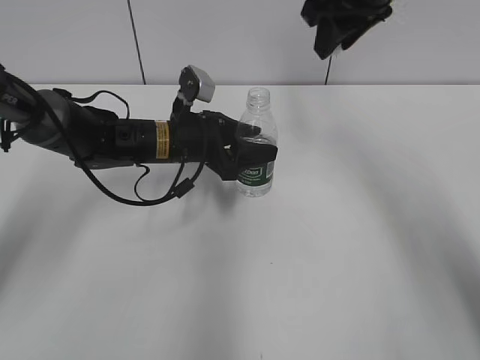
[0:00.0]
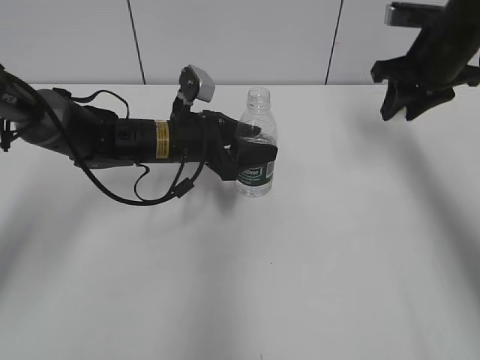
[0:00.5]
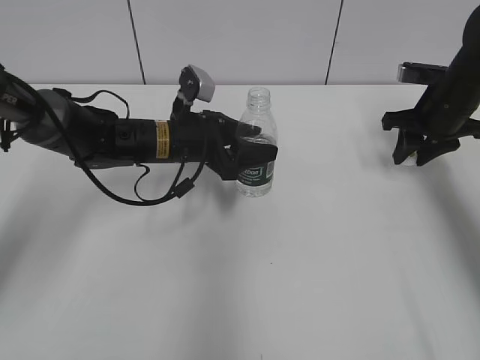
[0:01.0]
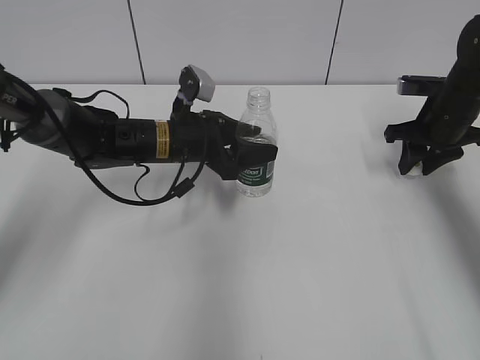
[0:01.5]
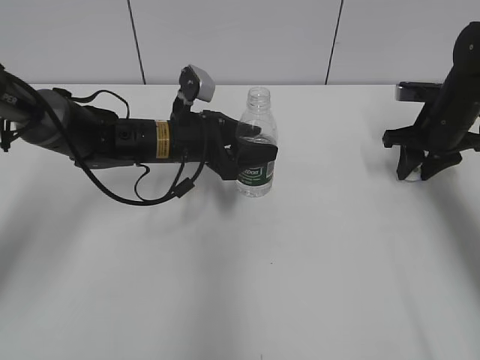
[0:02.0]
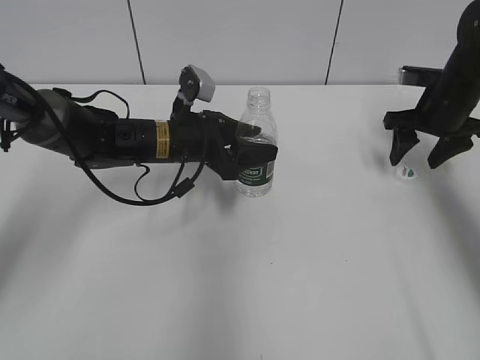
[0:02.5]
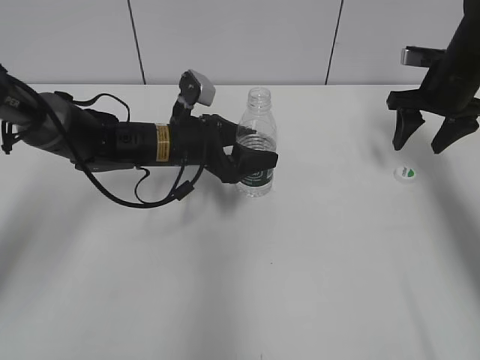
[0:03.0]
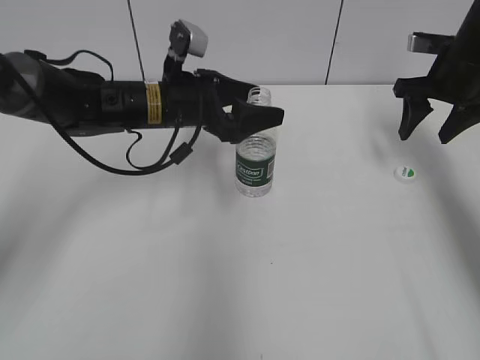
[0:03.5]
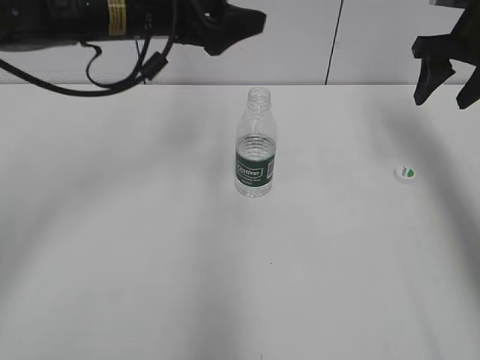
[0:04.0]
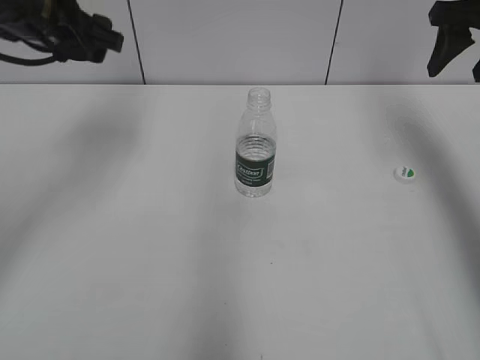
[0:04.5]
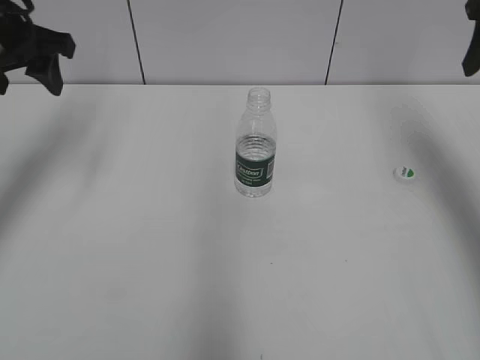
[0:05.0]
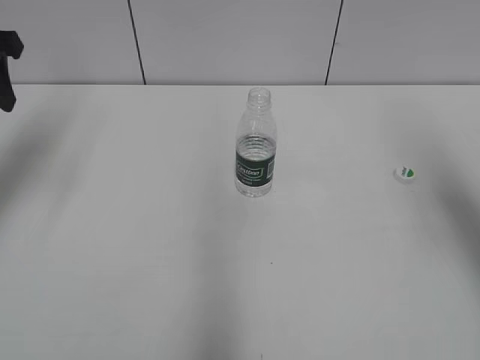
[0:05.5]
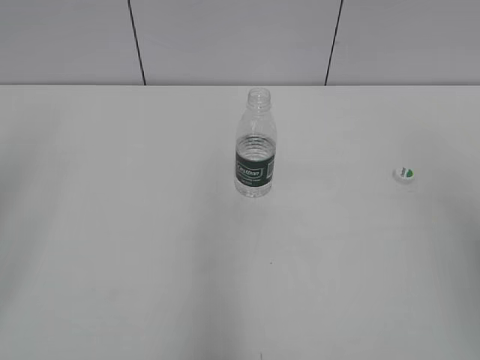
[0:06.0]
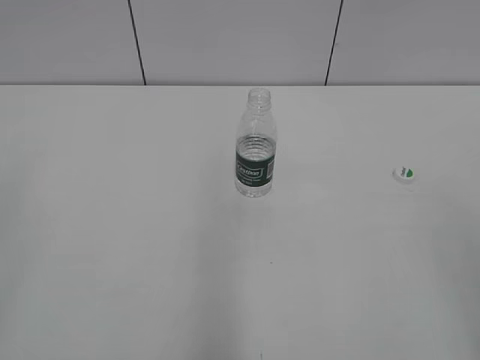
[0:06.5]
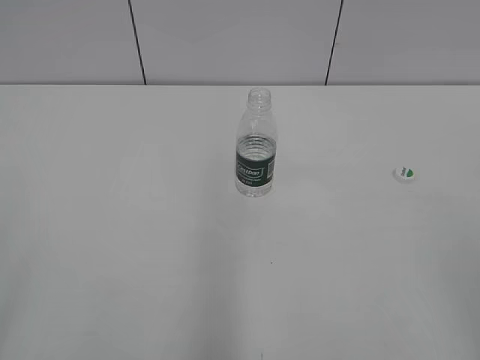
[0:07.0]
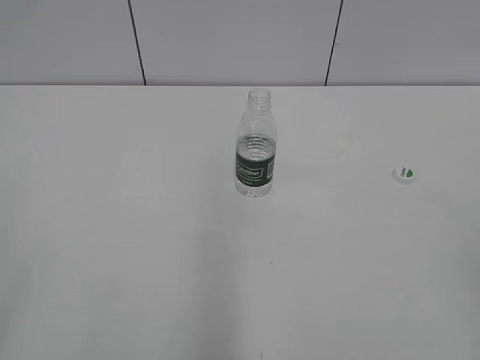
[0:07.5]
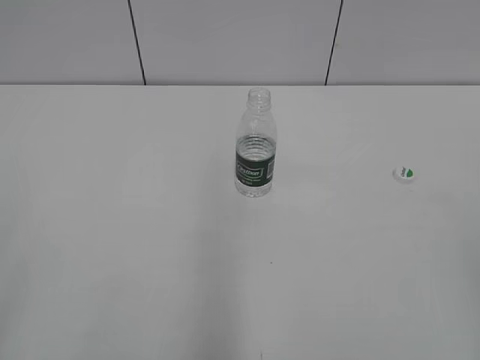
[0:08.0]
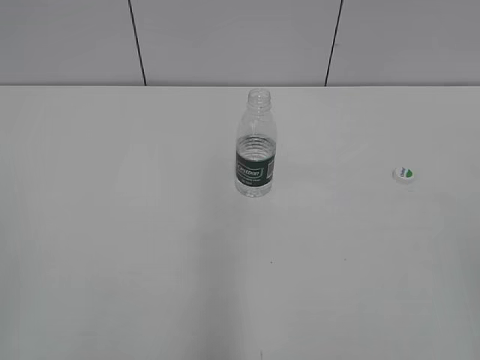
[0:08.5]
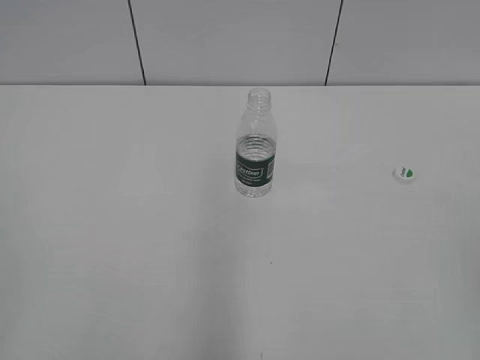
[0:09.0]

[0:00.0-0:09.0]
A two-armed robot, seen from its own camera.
Step, 0:00.0 to 0:02.0: Place the bottle cap on the table with the right gripper.
Step, 0:02.5 to 0:03.5: Place the bottle on the table with the left gripper.
0:00.0 to 0:02.0: The right gripper travels downward and to the right by about 25 cm.
0:02.0 to 0:04.5: The right gripper shifts some 20 cm upward, and opens, while the left gripper heads upward and to the left, covering roughly 20 cm, and opens up.
0:04.5 to 0:07.0: The grippers both shift backward by approximately 40 cm. The left gripper closes up.

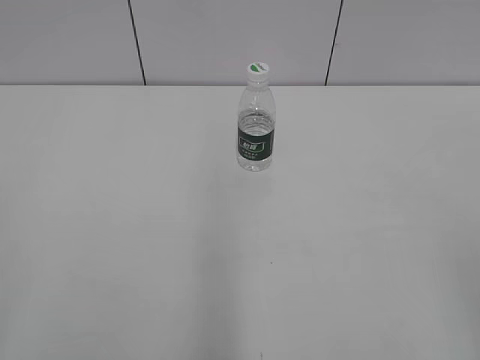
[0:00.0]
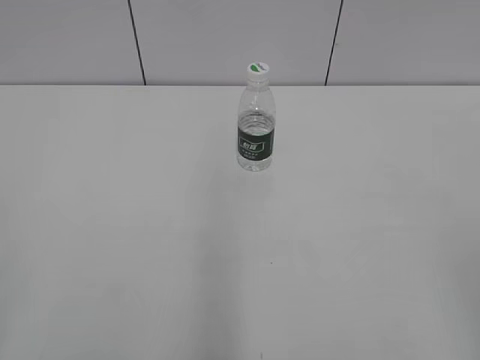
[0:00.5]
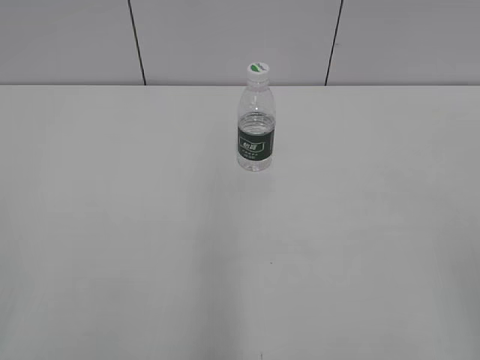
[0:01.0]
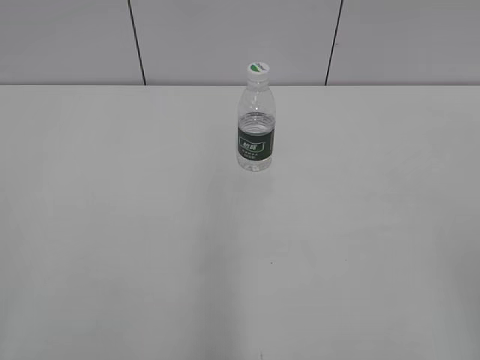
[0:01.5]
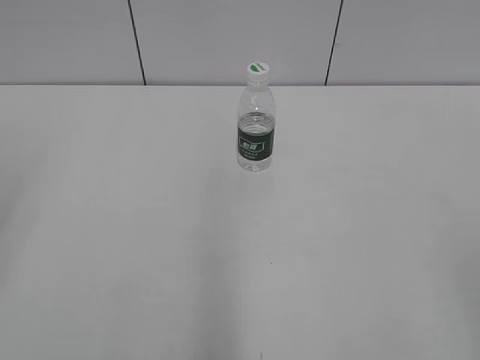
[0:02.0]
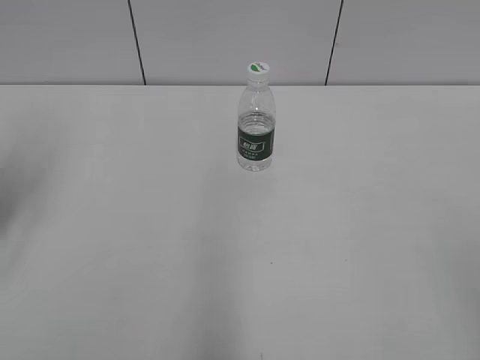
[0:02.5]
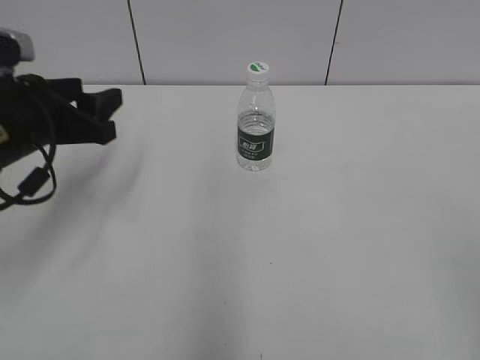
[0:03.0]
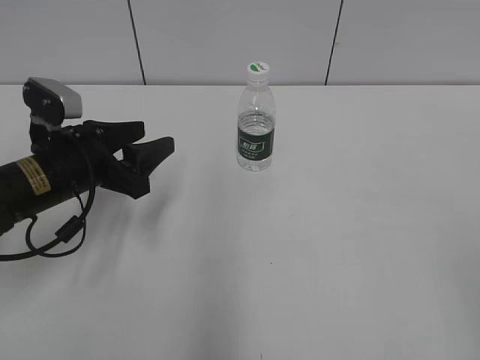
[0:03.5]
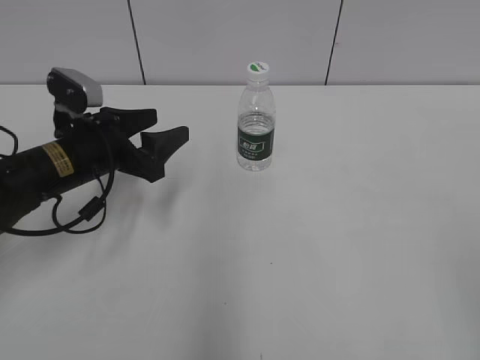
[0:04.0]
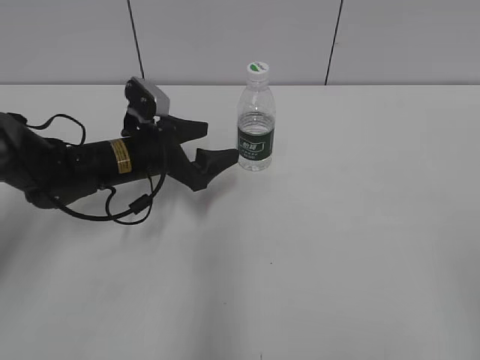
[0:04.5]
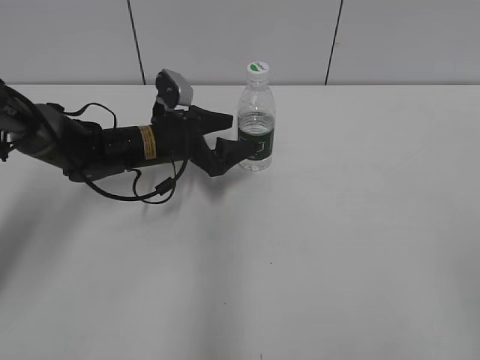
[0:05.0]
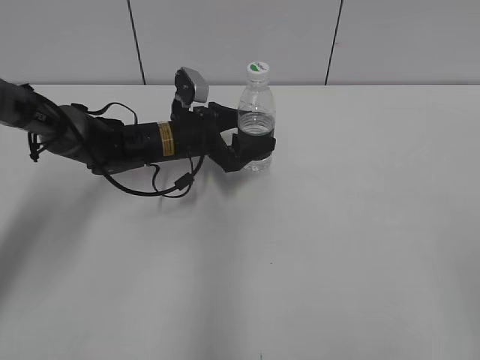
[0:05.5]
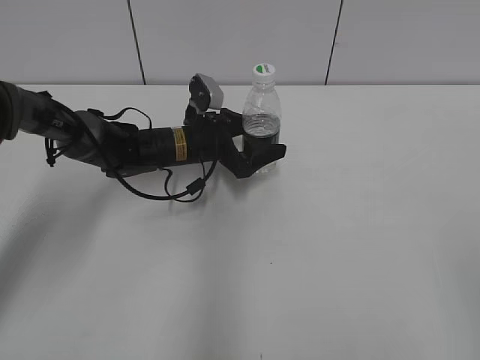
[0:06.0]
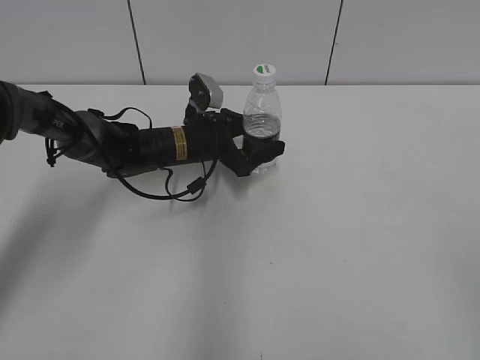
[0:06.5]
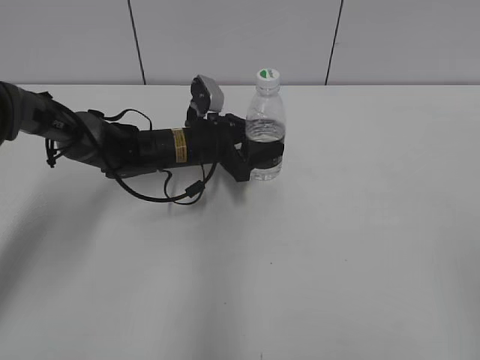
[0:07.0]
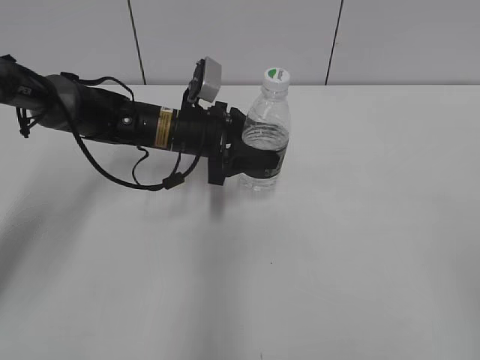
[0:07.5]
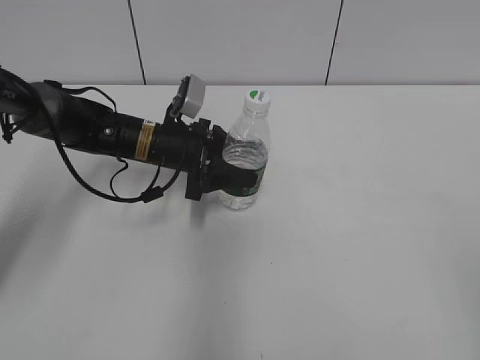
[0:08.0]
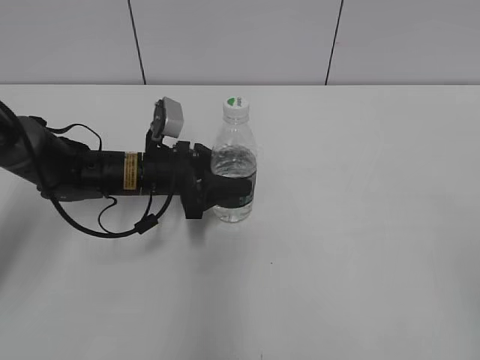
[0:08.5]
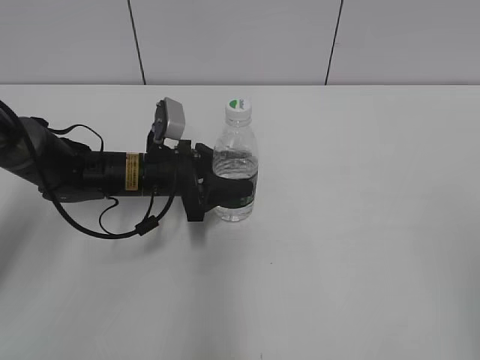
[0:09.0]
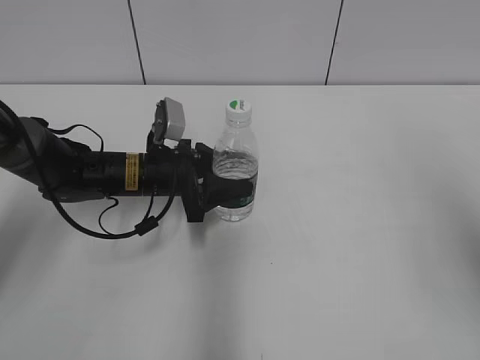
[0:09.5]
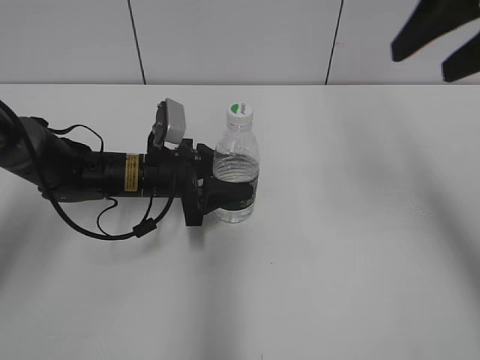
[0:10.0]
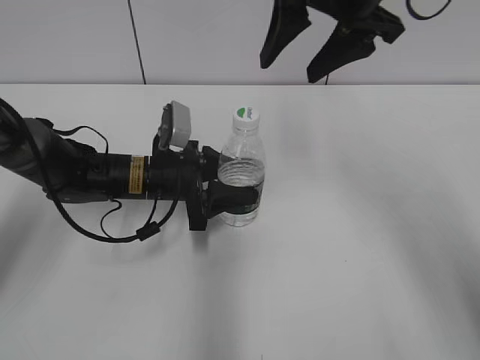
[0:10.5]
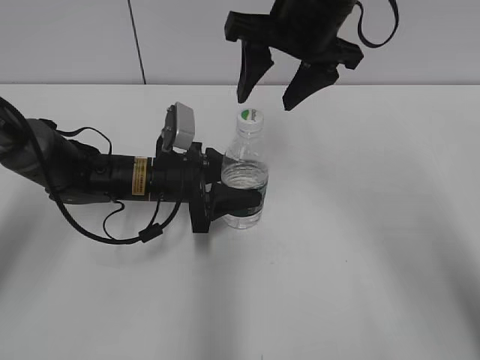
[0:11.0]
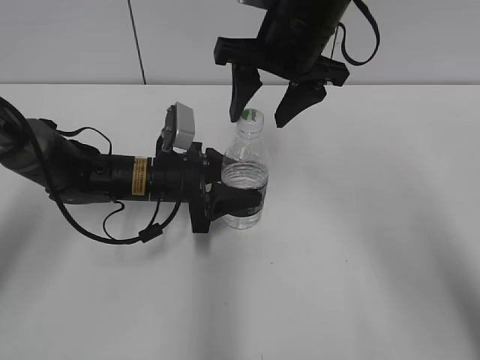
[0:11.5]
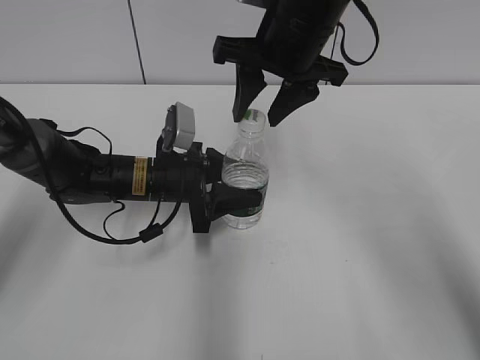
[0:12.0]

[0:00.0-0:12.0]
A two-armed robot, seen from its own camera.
Step, 0:00.0 to 0:06.5: Grasp the bottle and move it to the center of the table with the left gripper.
Step, 0:07.0 to 0:09.0: Lift the bottle and move it to the center of the table with the left gripper.
0:02.0 to 0:04.0: The left gripper heads forward, downward and to the right, covering about 35 cm.
0:04.0 to 0:06.0: The left gripper travels to the right, forward and downward by some 15 cm.
0:06.0 to 0:08.0: The left gripper moves some 5 cm, and closes.
0:08.0 to 0:10.0: The right gripper goes about 30 cm forward; the left gripper changes place by about 5 cm.
0:10.0 to 0:12.0: The right gripper heads to the left, downward and forward, covering about 20 cm, and closes up.

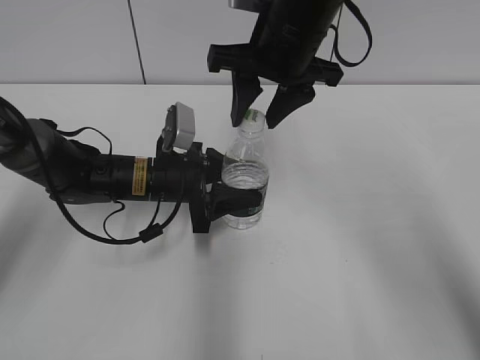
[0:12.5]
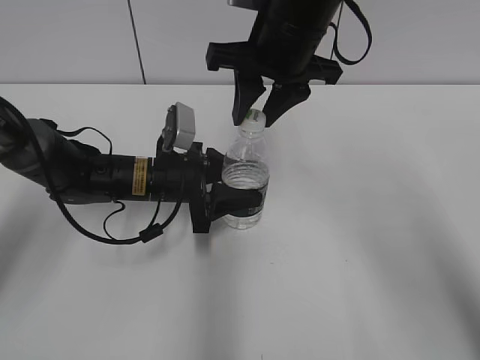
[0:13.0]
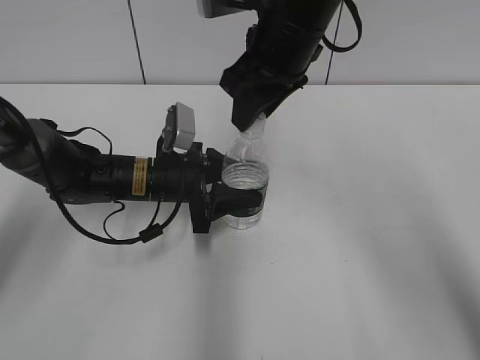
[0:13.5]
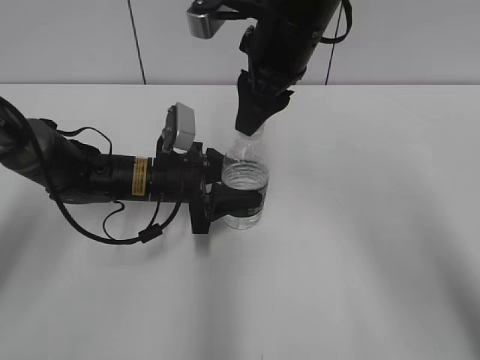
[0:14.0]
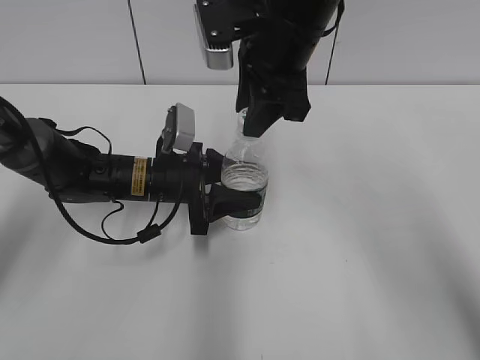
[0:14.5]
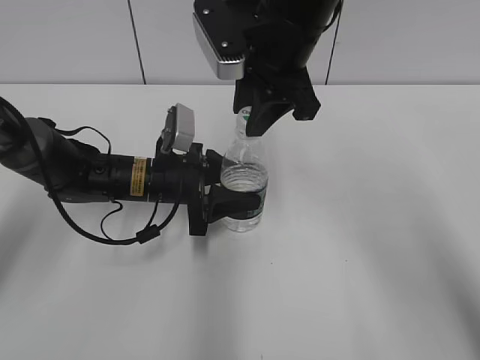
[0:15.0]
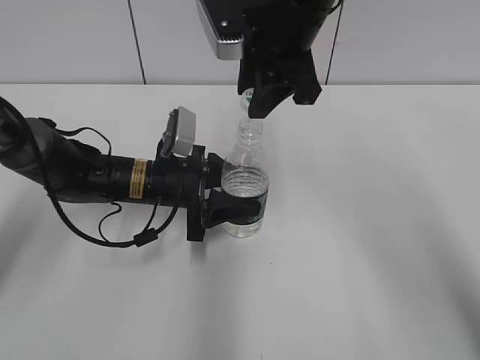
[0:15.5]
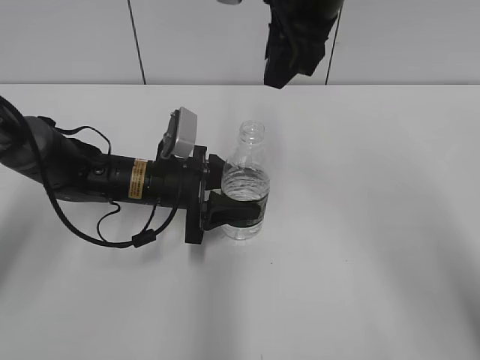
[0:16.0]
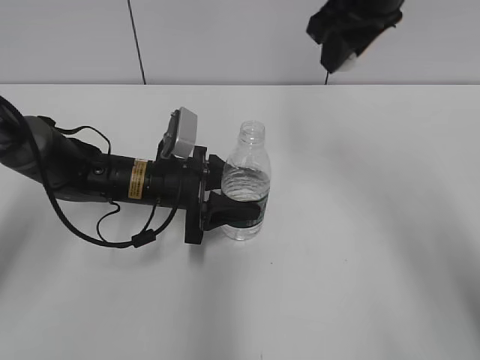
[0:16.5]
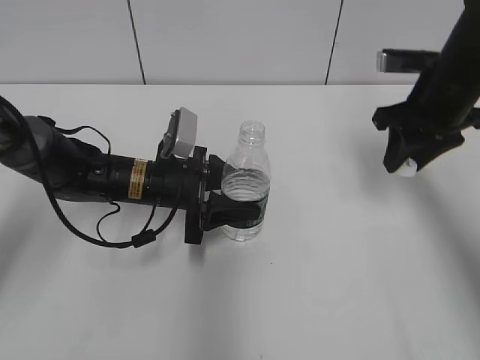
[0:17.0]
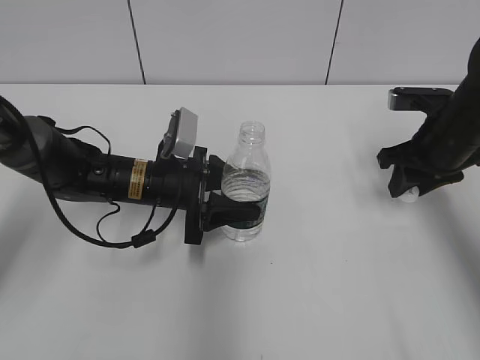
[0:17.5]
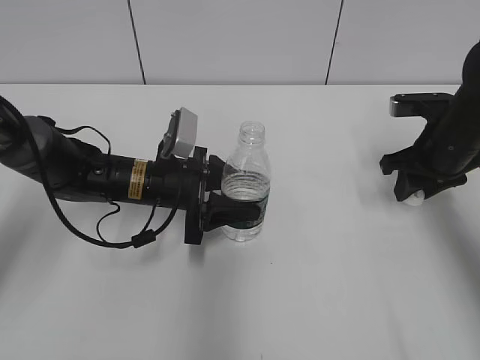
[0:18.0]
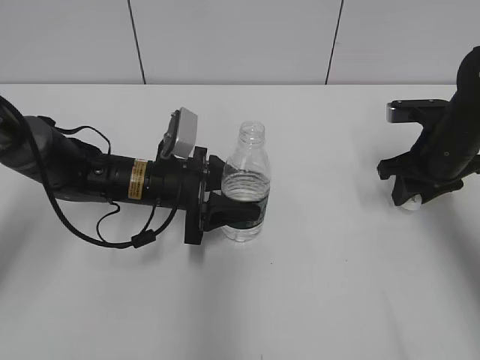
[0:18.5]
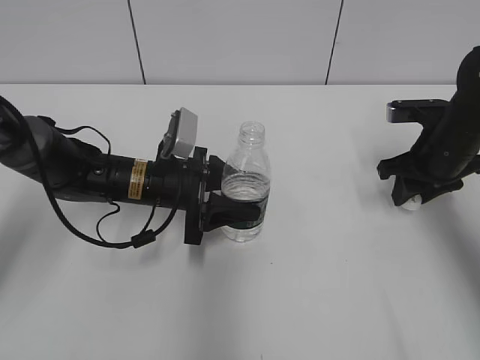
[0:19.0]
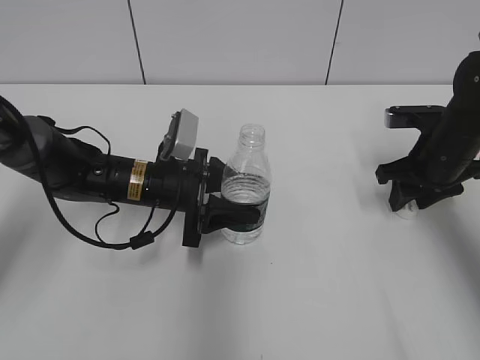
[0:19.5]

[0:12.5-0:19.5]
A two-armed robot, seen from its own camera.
Step, 0:12.5 to 0:15.5: Unscrew the bottle cap with the right gripper while holding the bottle with the left gripper.
0:14.5 to 0:16.0: The right gripper is displaced upward by about 5 cm.
0:16.0 to 0:17.5: The right gripper heads to the right and downward, covering approximately 25 cm.
0:17.5 to 0:19.5: The grippers move only a little.
